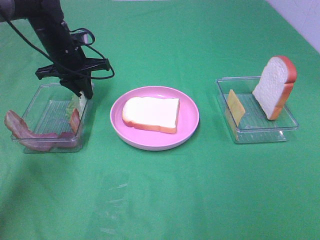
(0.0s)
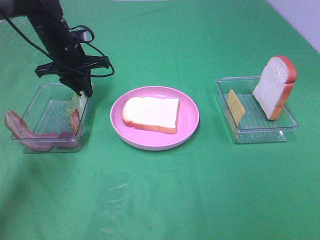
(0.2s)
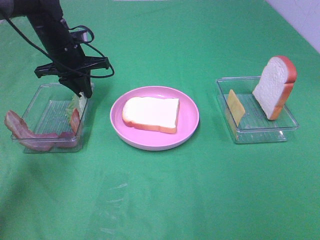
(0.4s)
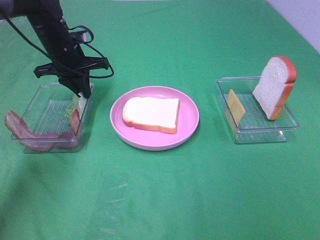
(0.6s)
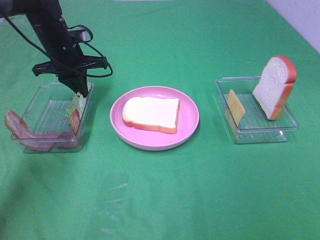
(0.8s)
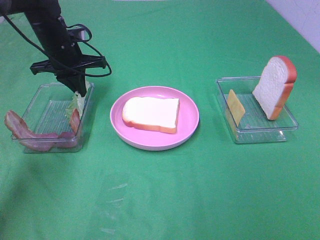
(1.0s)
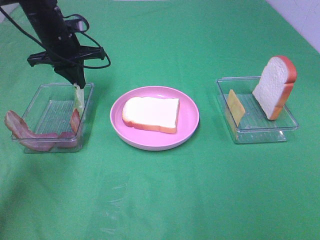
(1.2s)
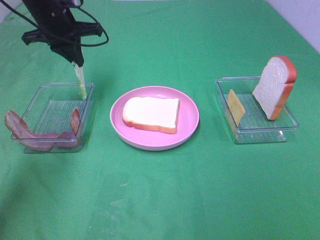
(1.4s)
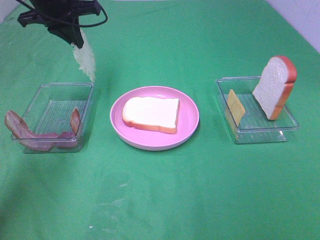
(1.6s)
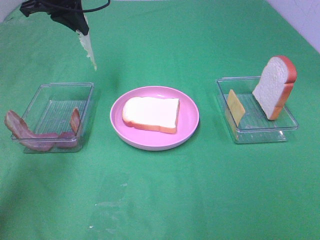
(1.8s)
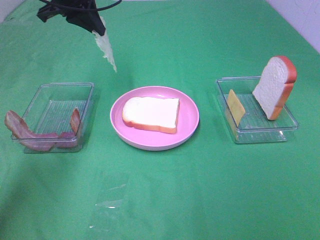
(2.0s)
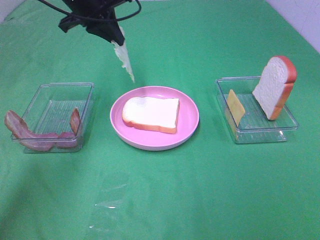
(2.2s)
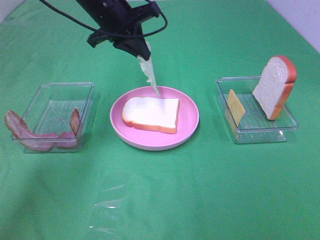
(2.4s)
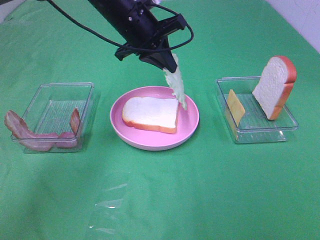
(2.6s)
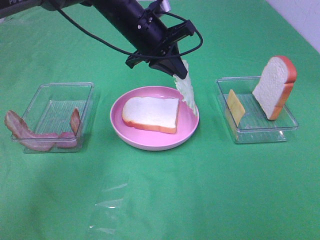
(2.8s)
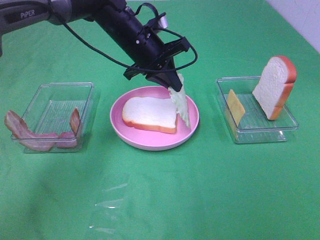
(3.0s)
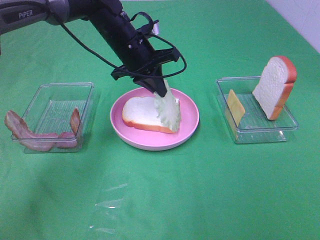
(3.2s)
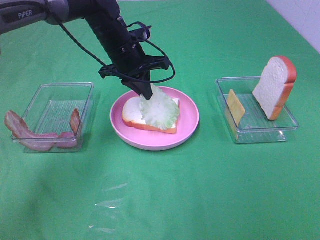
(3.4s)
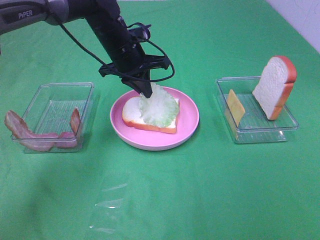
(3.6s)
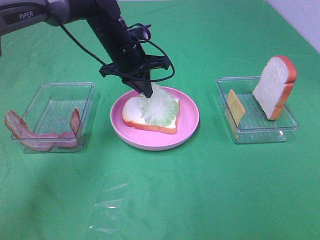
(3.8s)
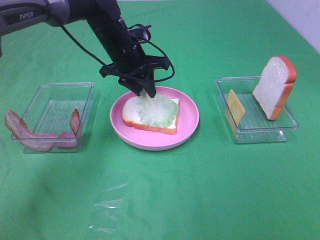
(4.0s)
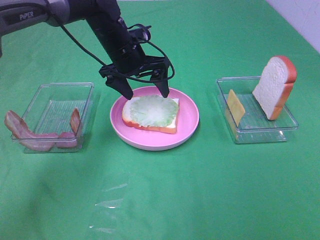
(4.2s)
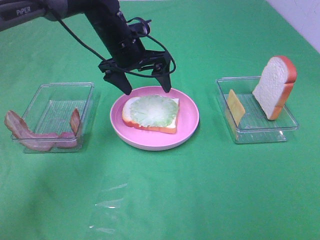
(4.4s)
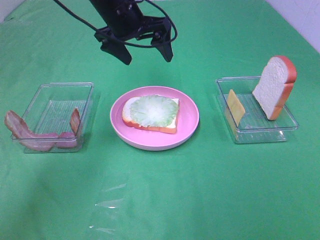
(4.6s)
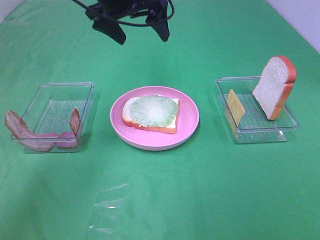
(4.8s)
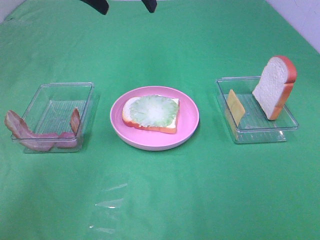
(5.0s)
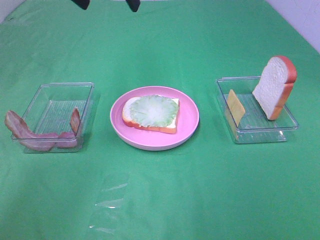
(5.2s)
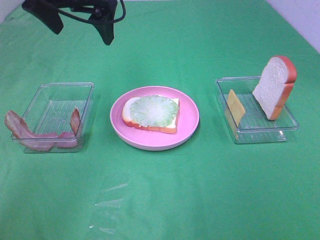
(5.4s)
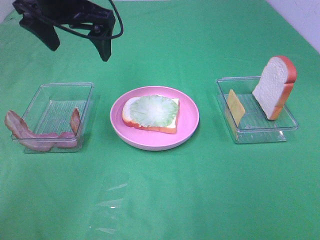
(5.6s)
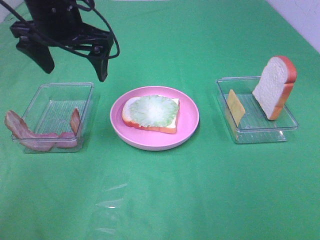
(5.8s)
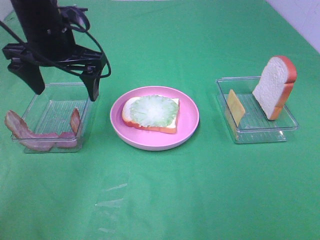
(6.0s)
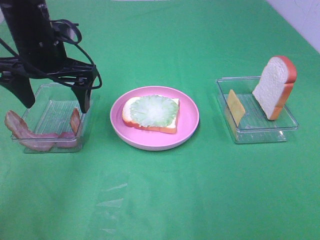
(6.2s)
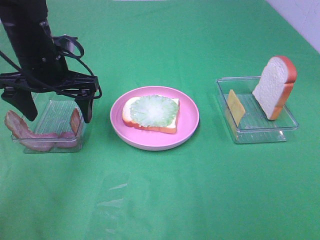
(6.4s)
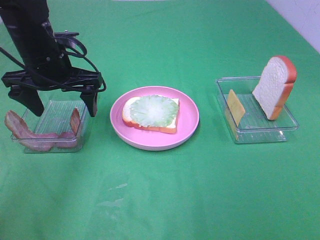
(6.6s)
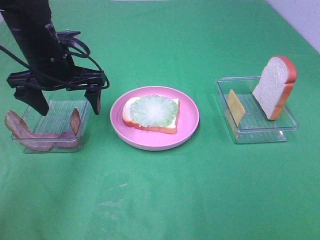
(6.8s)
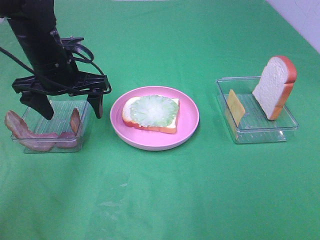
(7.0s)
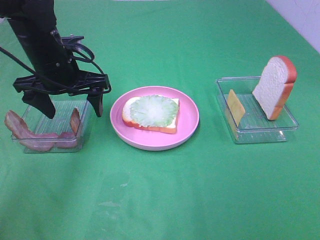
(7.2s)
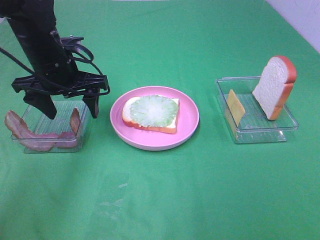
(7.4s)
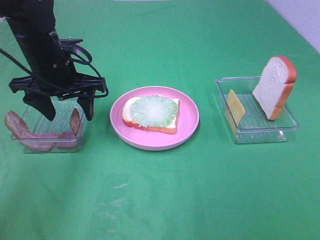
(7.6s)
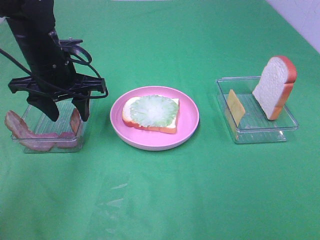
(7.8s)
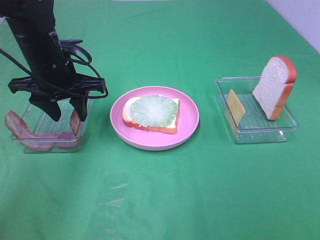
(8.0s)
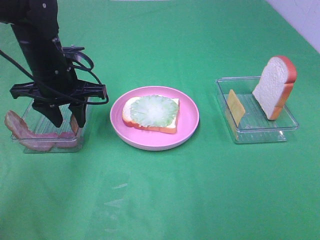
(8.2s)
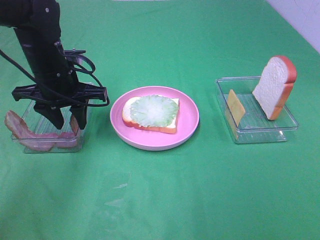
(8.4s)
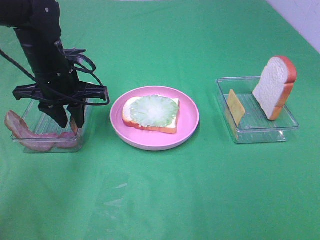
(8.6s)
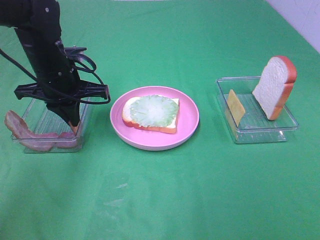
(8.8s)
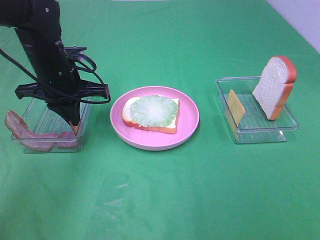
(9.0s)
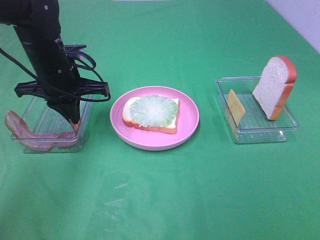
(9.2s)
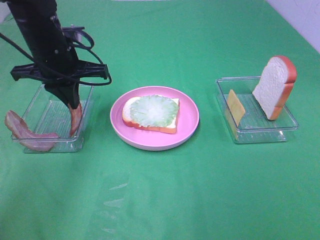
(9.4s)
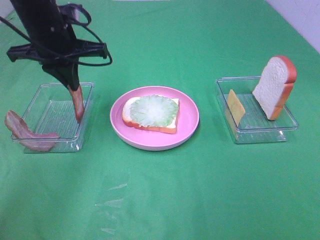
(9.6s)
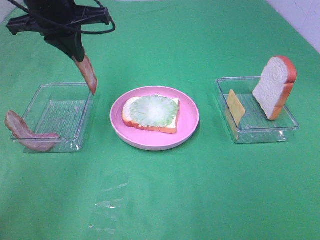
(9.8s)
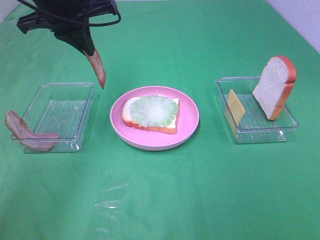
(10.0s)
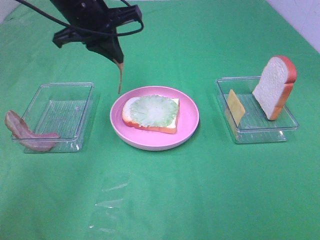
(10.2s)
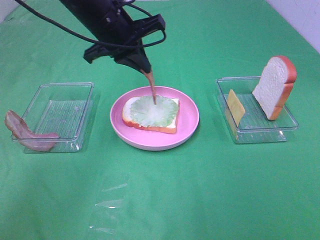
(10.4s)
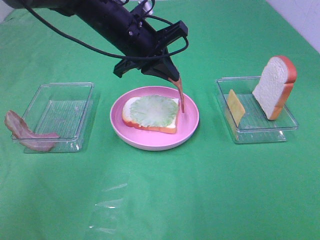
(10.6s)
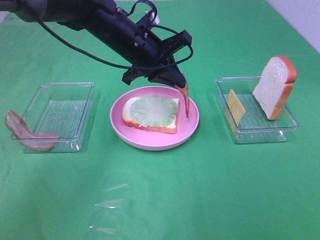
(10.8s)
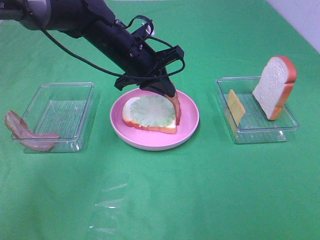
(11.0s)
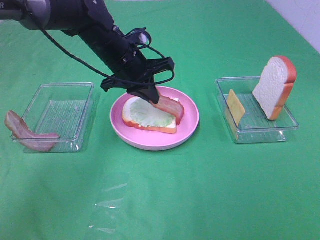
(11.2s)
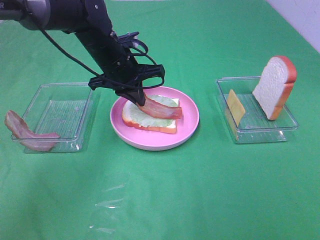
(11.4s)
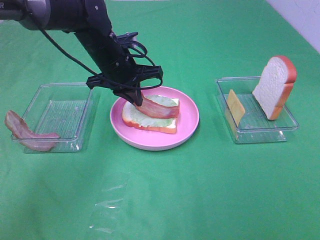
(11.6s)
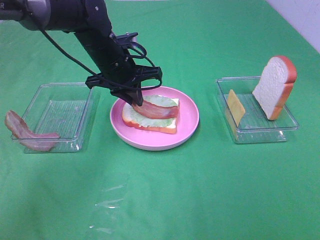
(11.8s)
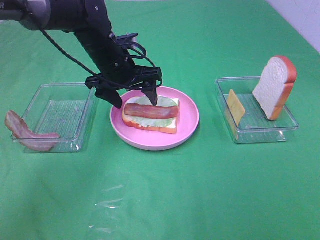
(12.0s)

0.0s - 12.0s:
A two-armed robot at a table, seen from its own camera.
Task of the whole recording: Make sandwiches.
Step, 0.0s - 4.2s: Left hand:place the lettuce slice on the bread slice.
Step, 4.4s - 8.8s: Left hand:grab the bacon.
Step, 9.0s - 12.0s: Left hand:place bacon on lettuce slice.
0.0s - 1.6s: The left gripper shifts some 10 cm upward.
1.6s - 3.0s: The left gripper goes approximately 20 cm to the right and downward.
3.0s - 4.4s: The left gripper opens its fingers.
4.4s - 6.0s: The left gripper is displaced to the left, backward and upward by approximately 15 cm.
6.0s - 7.6s: The left gripper heads downward, covering some 5 cm.
7.6s - 9.0s: The left gripper closes its fingers.
9.0s - 10.4s: The left gripper goes about 10 cm to the right and upward.
10.4s - 12.0s: The left gripper is displaced downward by roughly 10 cm, and opens its fingers.

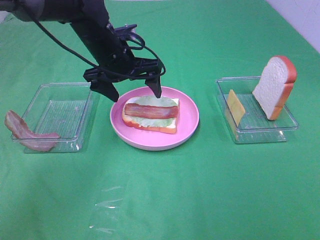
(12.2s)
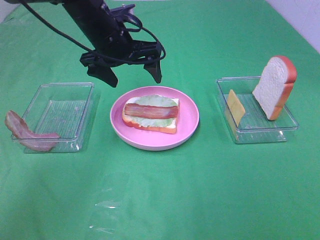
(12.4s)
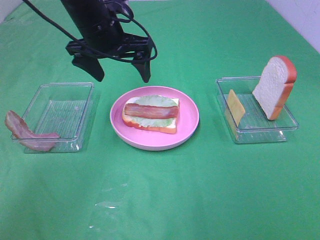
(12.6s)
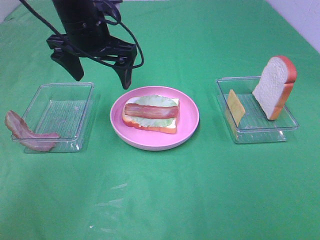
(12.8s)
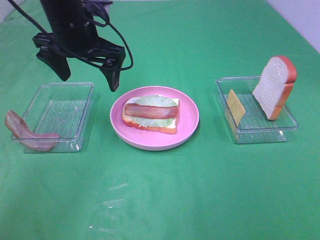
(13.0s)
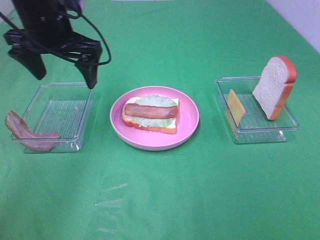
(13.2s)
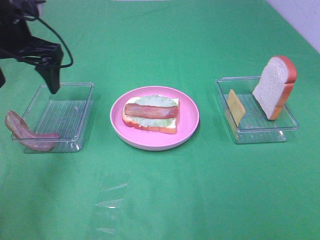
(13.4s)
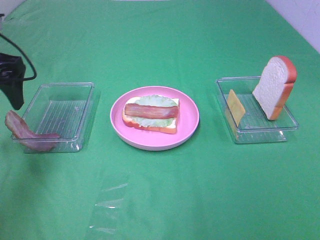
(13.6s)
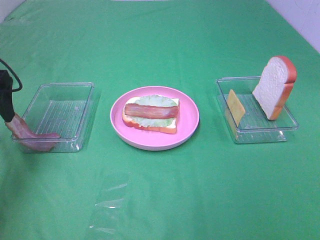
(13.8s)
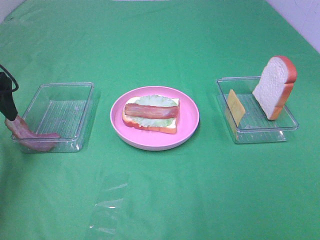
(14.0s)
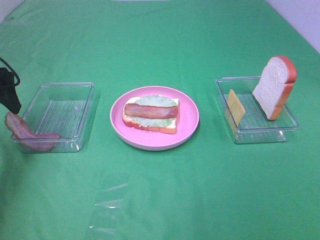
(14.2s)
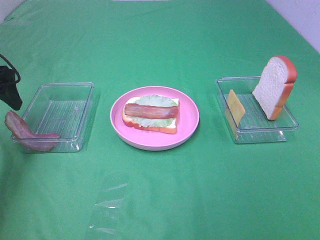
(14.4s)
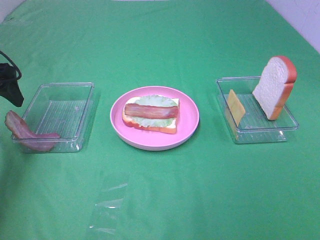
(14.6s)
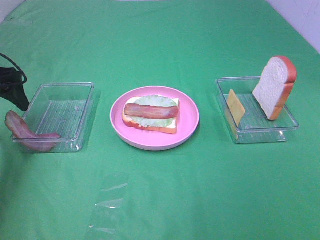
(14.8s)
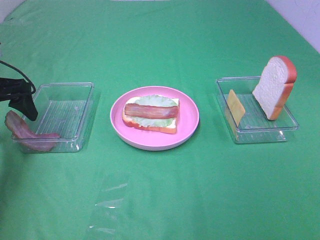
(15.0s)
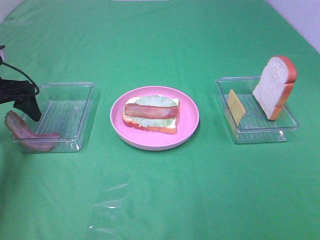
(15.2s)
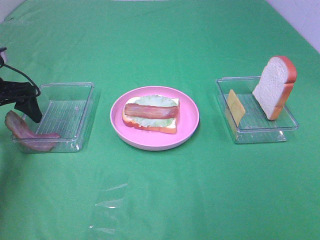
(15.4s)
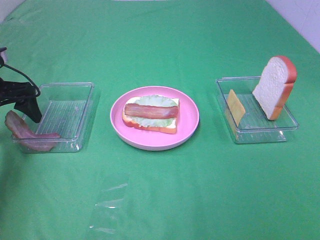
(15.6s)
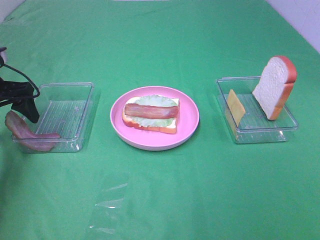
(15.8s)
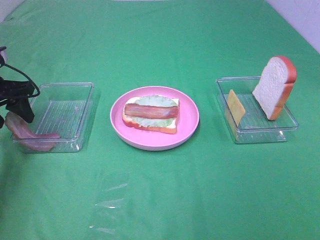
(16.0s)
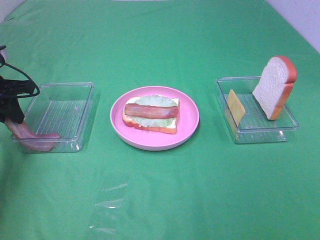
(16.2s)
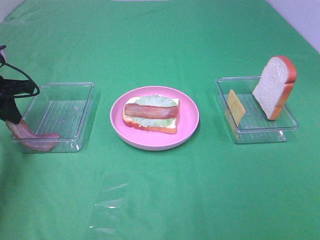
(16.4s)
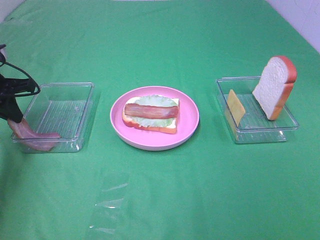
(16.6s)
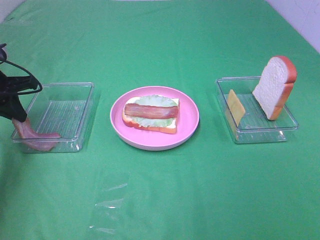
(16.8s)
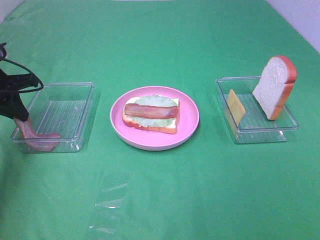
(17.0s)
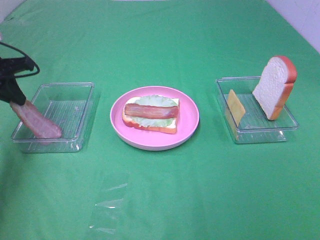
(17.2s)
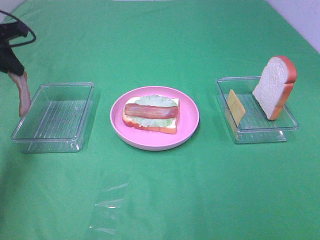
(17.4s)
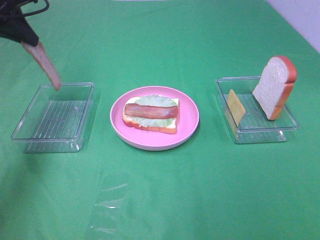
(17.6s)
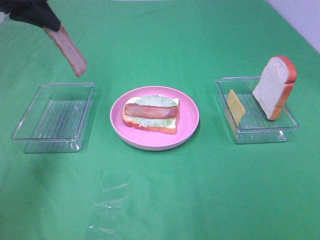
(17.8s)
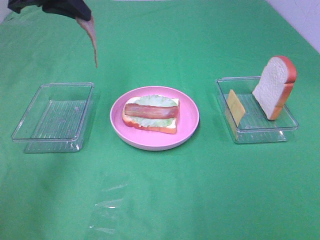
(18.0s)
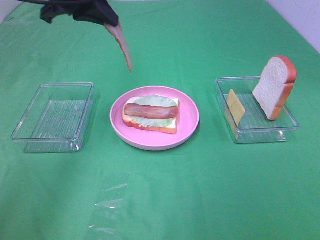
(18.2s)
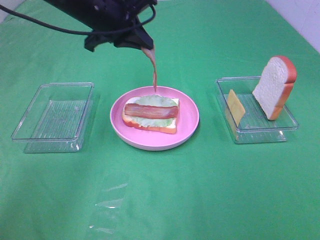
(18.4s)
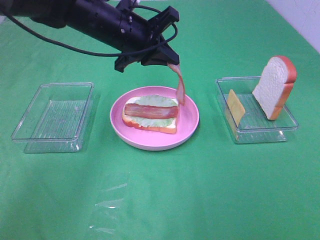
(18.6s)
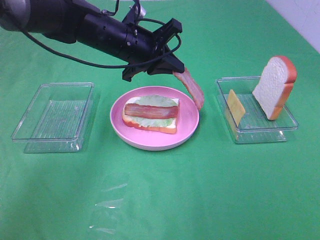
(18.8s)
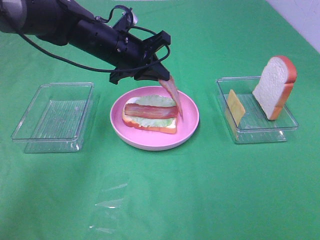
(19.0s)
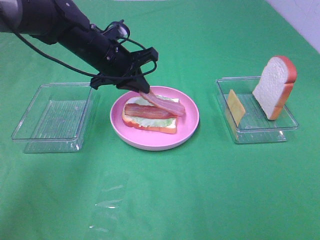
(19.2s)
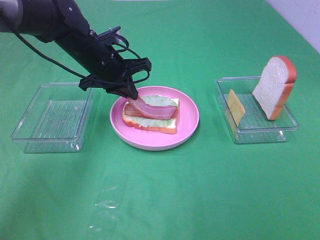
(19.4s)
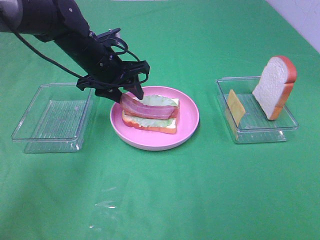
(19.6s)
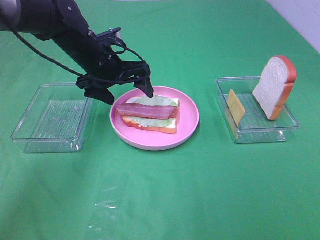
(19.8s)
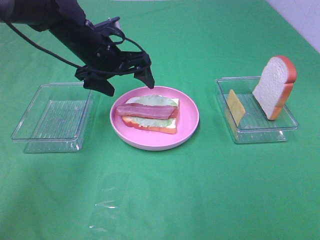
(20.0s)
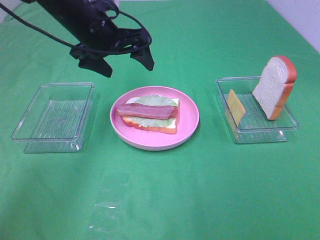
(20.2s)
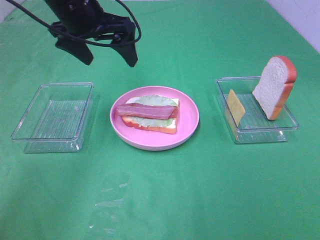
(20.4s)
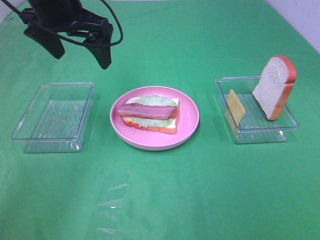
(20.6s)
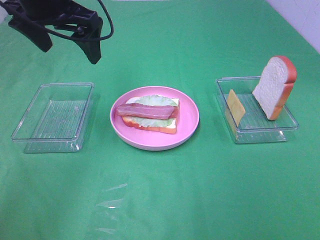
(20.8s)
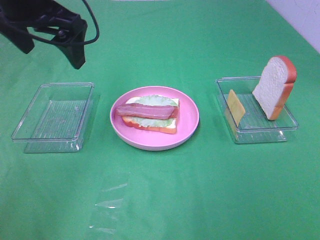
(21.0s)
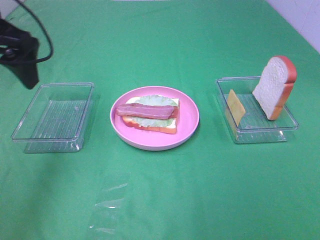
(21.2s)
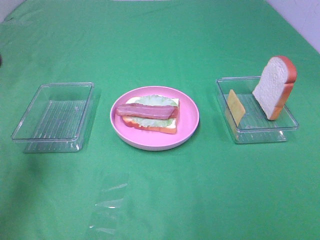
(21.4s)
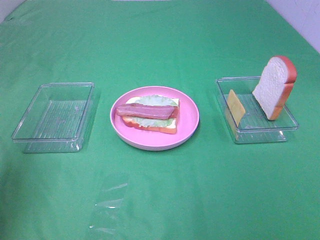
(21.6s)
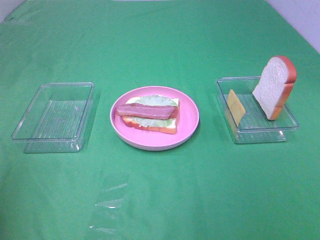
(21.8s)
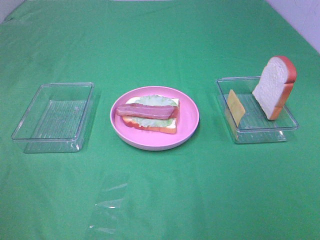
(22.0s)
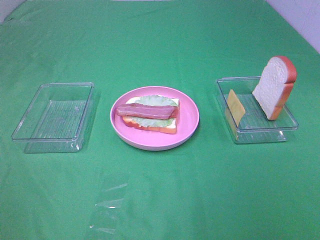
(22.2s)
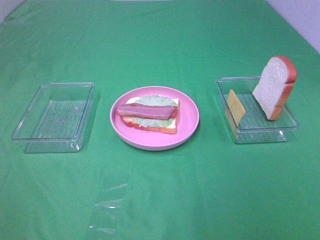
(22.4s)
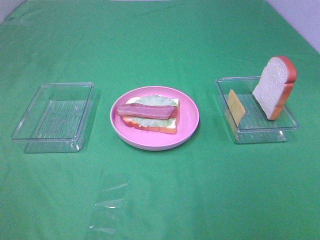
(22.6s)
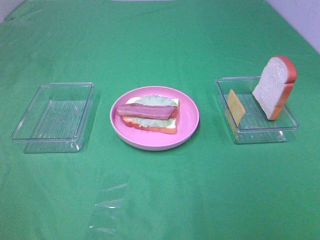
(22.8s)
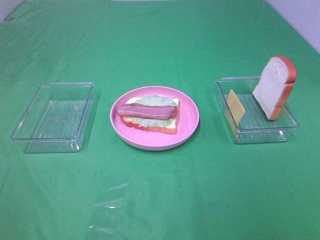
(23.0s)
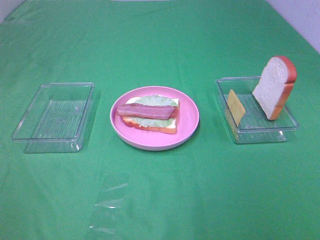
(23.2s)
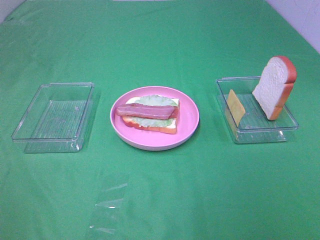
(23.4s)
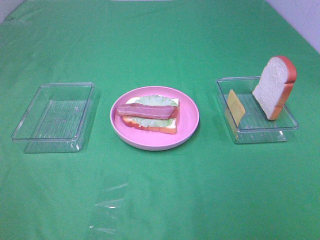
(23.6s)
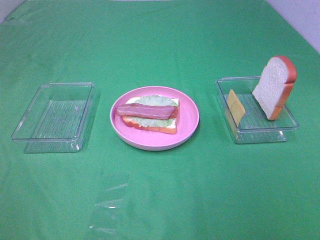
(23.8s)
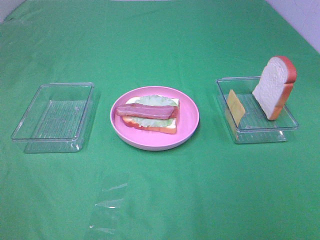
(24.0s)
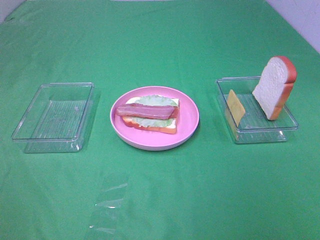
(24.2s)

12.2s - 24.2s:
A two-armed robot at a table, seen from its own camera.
Task of the whole recording: Make sandwiches.
Step, 12.2s - 16.4s: Left hand:grab the bacon.
Step, 16.6s - 19.8s: Left hand:place bacon on bacon.
12.2s - 13.8s: The left gripper travels to the left and backward by approximately 25 cm.
13.8s - 15.2s: The left gripper shifts about 5 cm downward.
15.2s - 16.6s: The left gripper closes its fingers.
16.6s - 18.2s: The left gripper shifts about 20 cm to the right and upward.
18.2s - 19.8s: The left gripper travels downward by roughly 15 cm, and opens up.
19.8s - 21.2s: The left gripper moves upward, to the left and backward, about 25 cm.
21.2s - 22.6s: The left gripper is displaced backward by about 30 cm.
